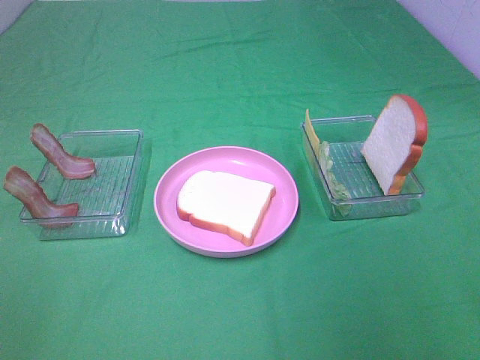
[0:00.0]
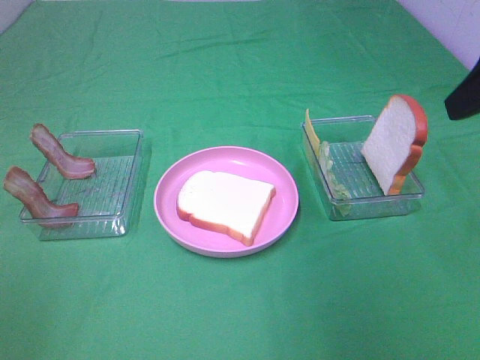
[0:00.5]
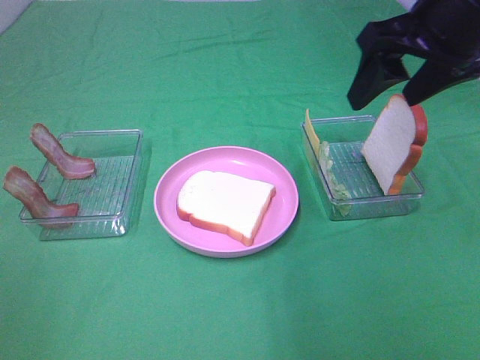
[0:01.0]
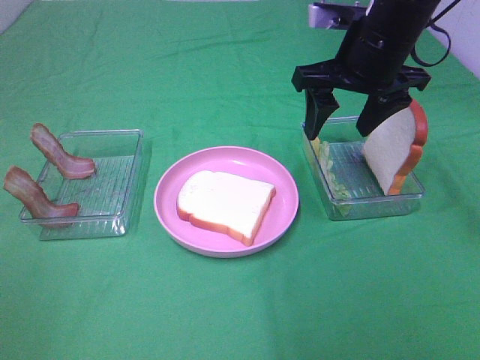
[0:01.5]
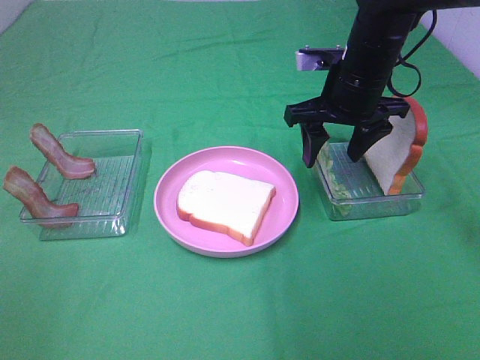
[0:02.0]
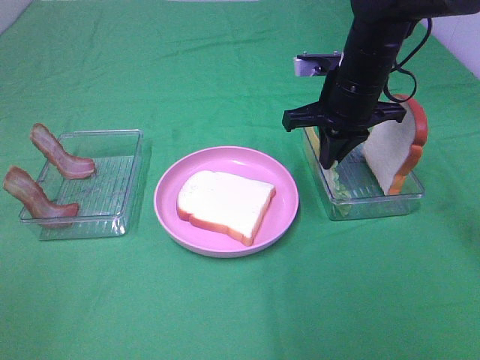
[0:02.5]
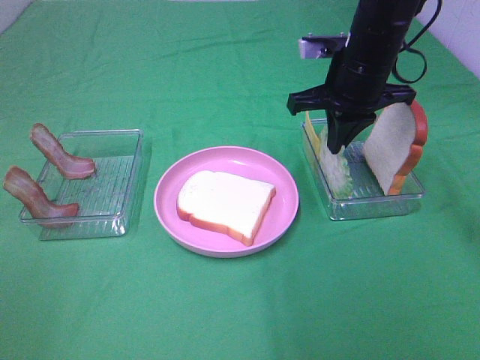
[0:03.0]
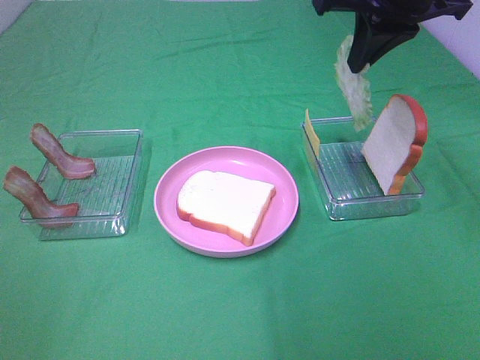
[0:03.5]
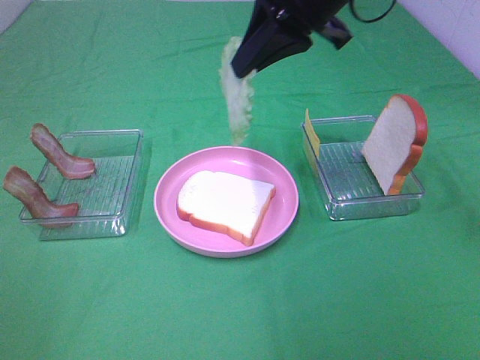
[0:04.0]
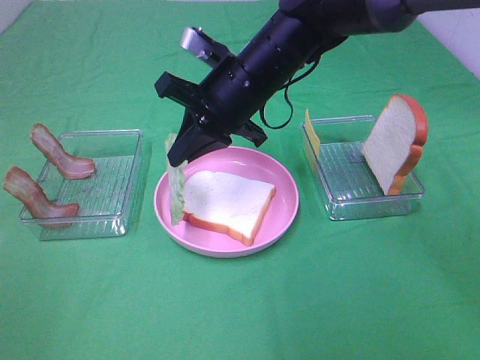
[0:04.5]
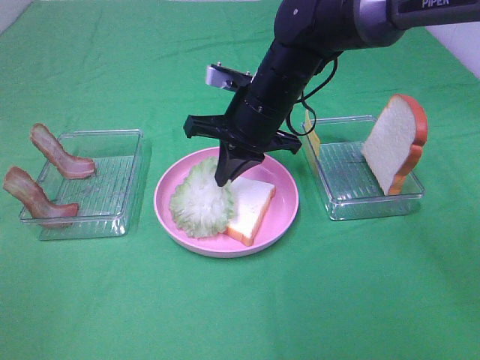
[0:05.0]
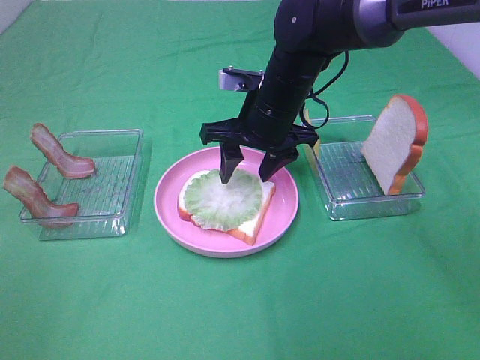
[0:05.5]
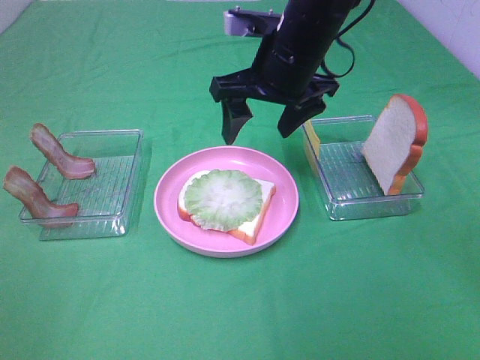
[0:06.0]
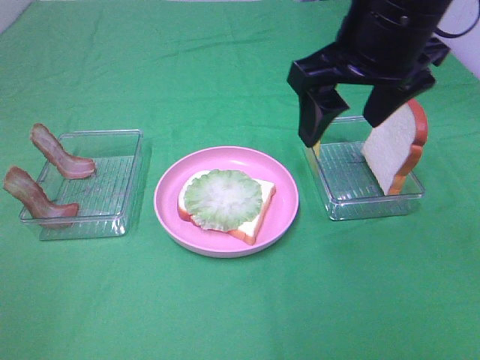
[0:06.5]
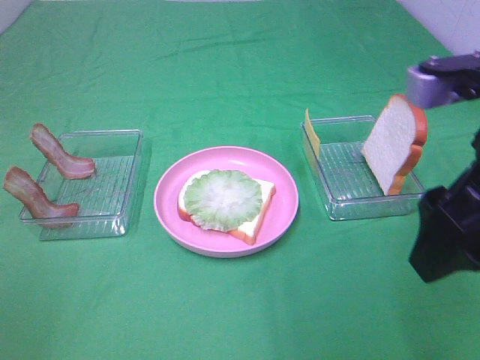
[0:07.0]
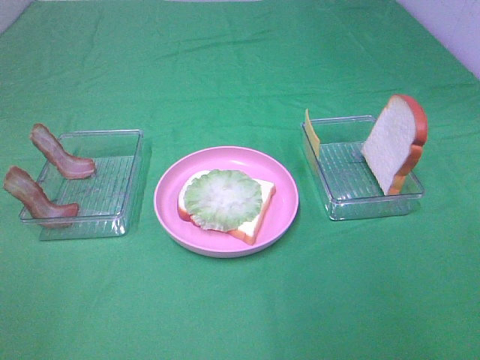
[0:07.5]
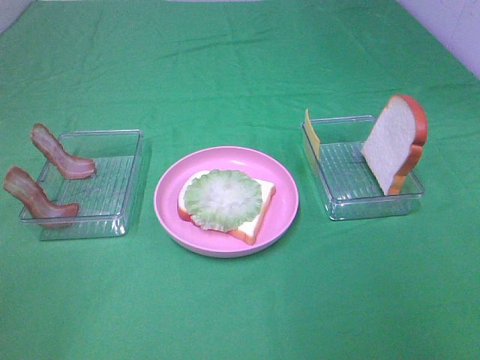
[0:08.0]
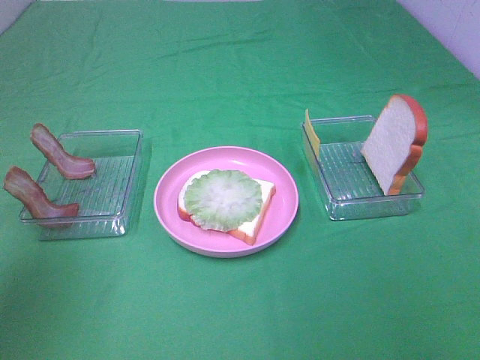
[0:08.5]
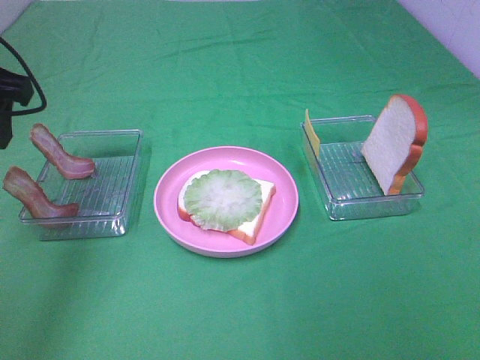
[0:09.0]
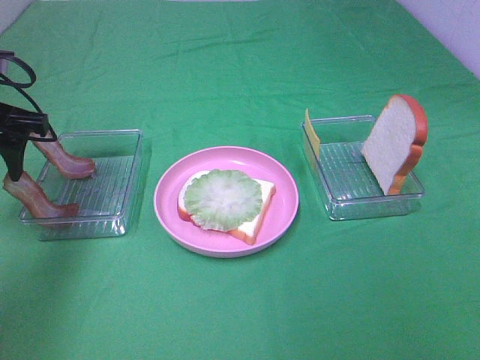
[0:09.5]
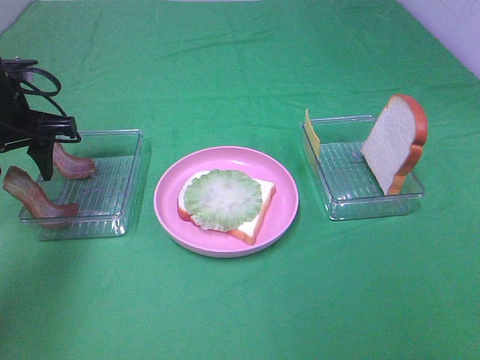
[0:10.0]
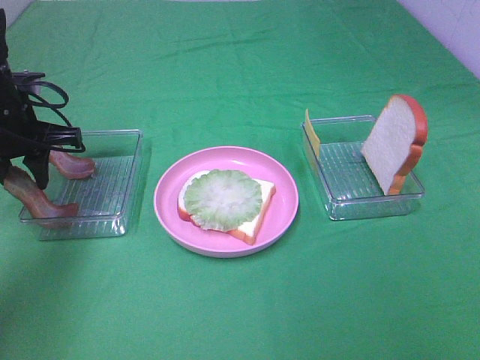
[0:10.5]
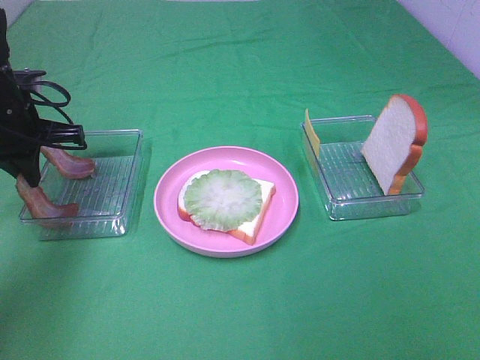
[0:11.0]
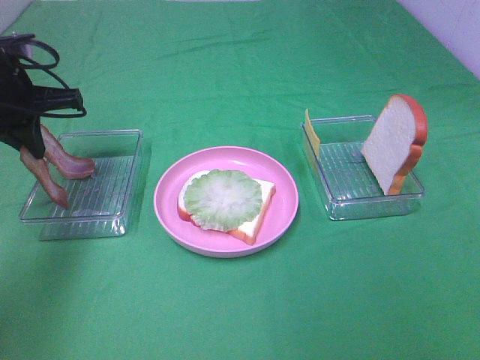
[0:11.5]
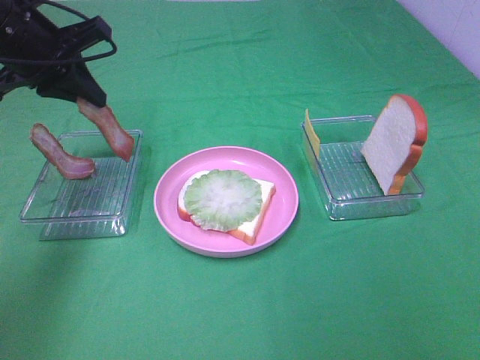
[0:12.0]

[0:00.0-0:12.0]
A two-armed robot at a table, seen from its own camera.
Task of the whole recording: Make sandwiches.
Step, 0:00.0 to 0:02.5: Right hand:grab the lettuce slice.
Step, 0:03.0 to 0:06.0: Right hand:place the lettuce slice on the bread slice.
Step, 0:06.5 to 0:10.5: Left hand:grab the bacon.
0:00.0 to 0:02.0: The right gripper moves forward, to the left and downward, some 35 cm.
0:02.0 to 0:04.0: The right gripper shifts roughly 15 cm upward and to the left, and closes.
0:04.0 to 0:06.0: The right gripper is displaced downward by approximately 5 cm, and opens.
0:06.0 to 0:08.0: The right gripper heads backward and to the right, covering some 40 cm.
0:08.0 to 0:10.0: The left gripper is displaced forward by approximately 35 cm.
0:10.0 to 0:12.0: The left gripper travels upward by about 5 cm, and closes its fingers.

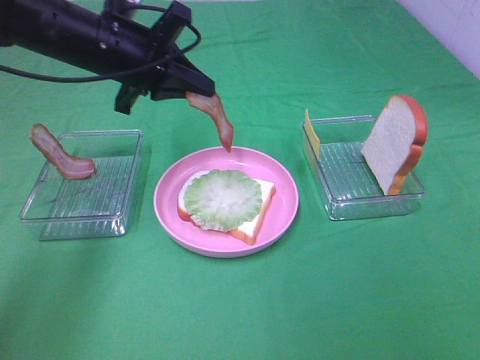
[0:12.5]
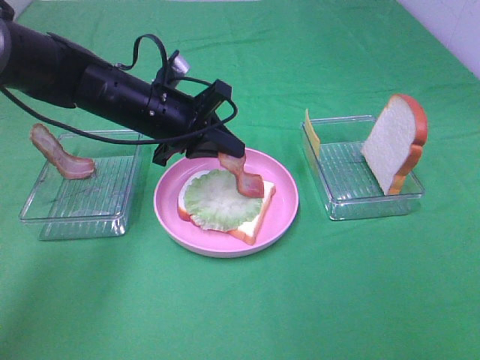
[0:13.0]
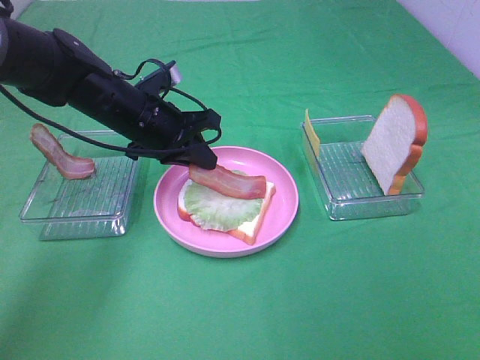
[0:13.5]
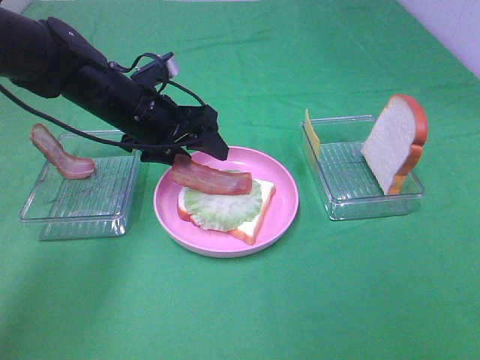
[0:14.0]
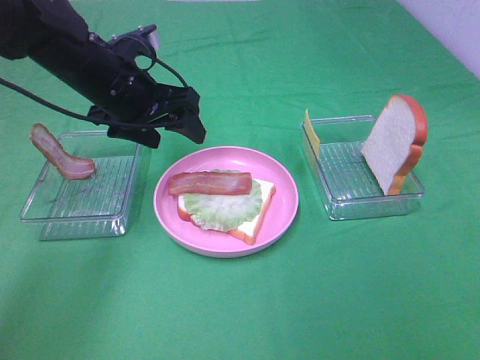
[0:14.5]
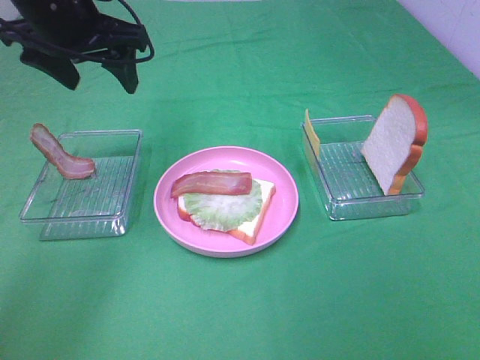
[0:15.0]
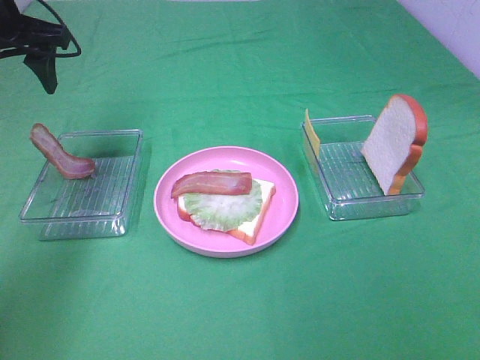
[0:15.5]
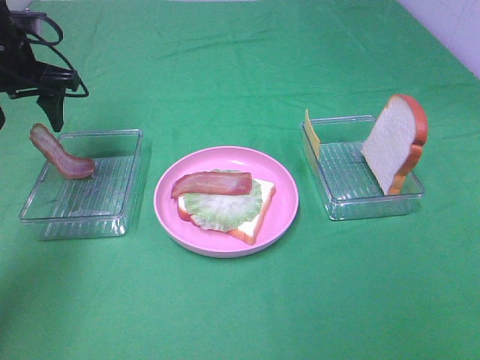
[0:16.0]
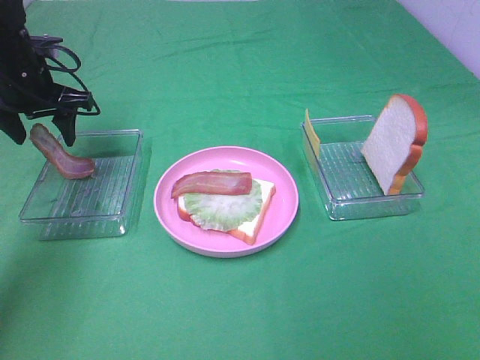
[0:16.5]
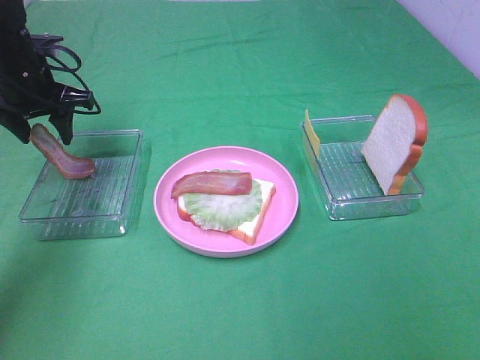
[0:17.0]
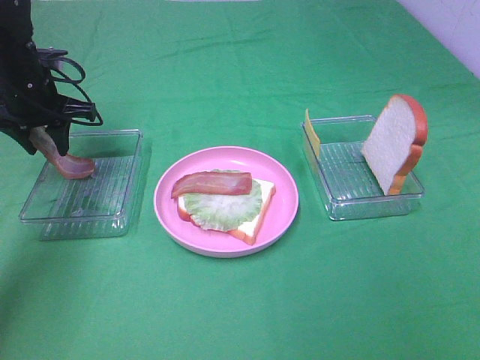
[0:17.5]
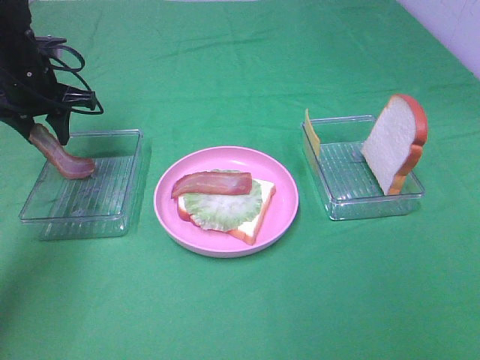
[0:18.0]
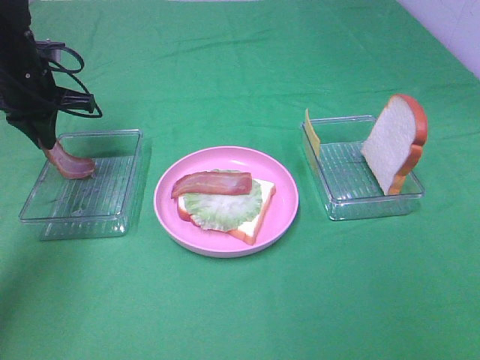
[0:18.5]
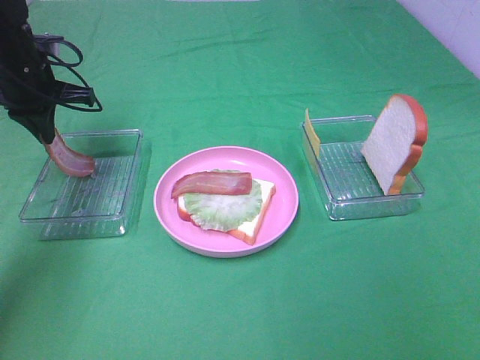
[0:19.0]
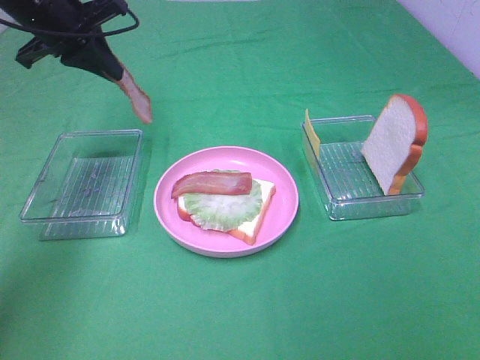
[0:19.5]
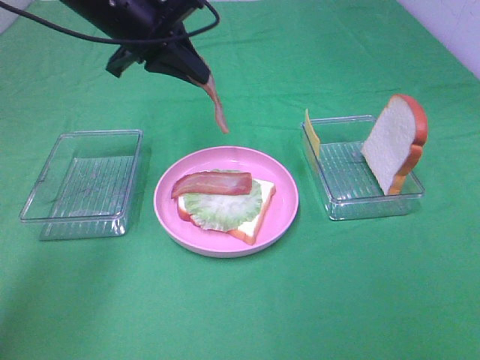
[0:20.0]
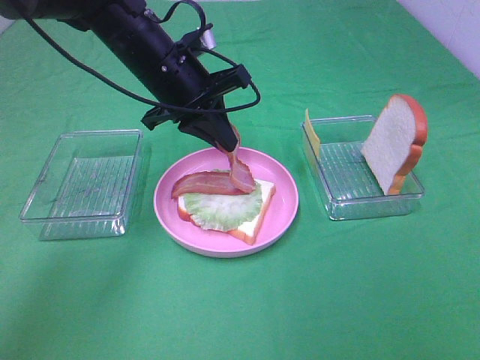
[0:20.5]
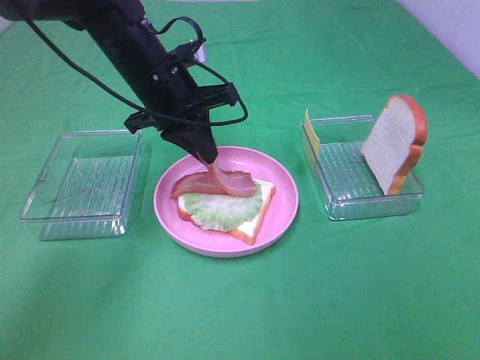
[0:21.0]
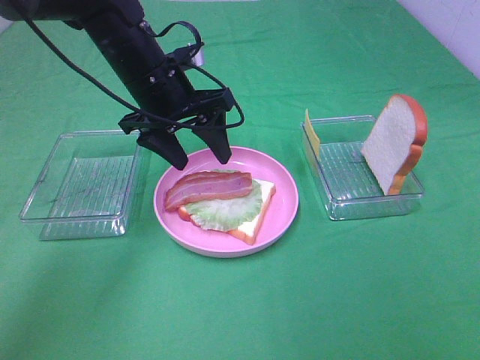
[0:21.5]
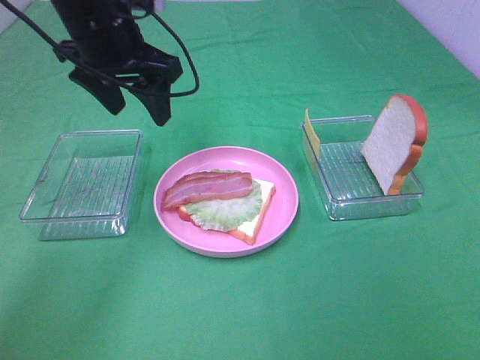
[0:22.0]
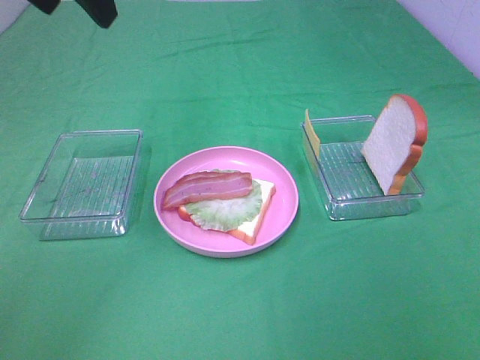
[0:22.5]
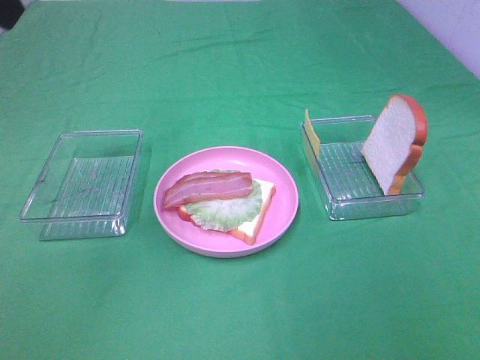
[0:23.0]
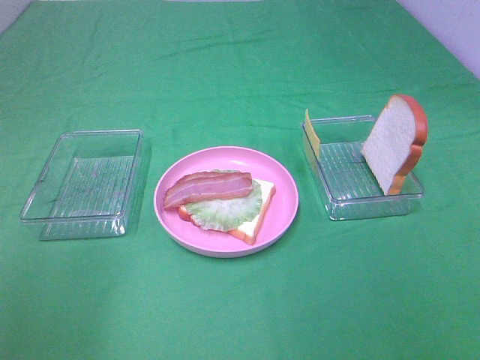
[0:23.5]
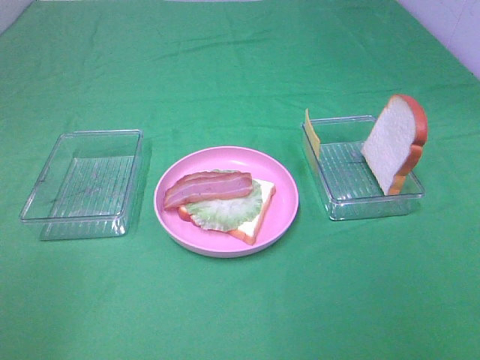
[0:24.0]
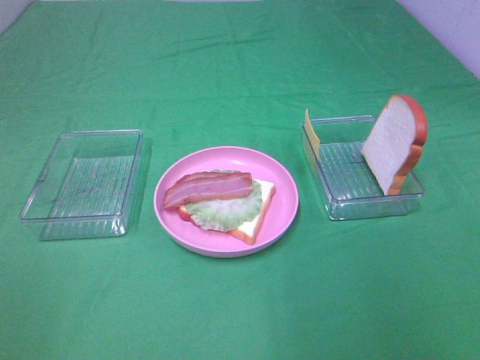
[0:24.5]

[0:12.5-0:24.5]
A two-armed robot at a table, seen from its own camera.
Task of the whole recording: Make sandwiches.
Step, 0:12.5 to 0:14.5: Left hand:place bacon on lettuce slice.
Step, 0:15.0 to 0:18.5: Left hand:grab the bacon.
Step, 0:19.0 to 0:21.5: Left hand:place bacon on bacon.
0:12.5 to 0:14.5: The left gripper opens.
0:14.5 to 0:16.5: The left gripper goes roughly 15 cm to the left and forward.
0:16.5 to 0:18.5: The left gripper closes.
0:18.5 to 0:20.5: The left gripper travels to the right by roughly 20 cm.
0:20.5 to 0:22.5: The left gripper is displaced upward and to the left by about 20 cm, and opens.
0:22.5 to 0:24.5: The left gripper shifts about 35 cm backward and to the left.

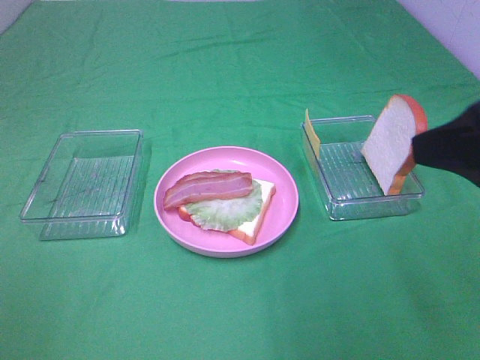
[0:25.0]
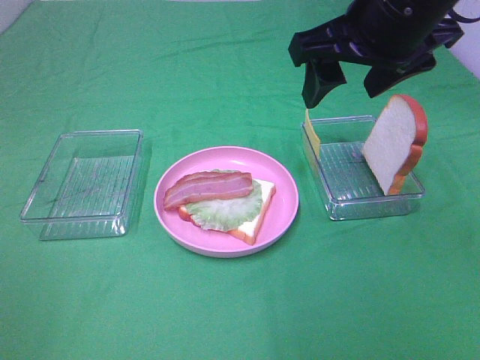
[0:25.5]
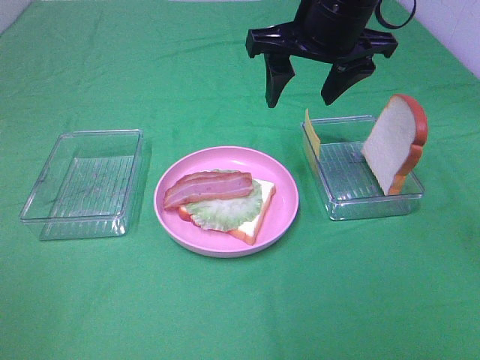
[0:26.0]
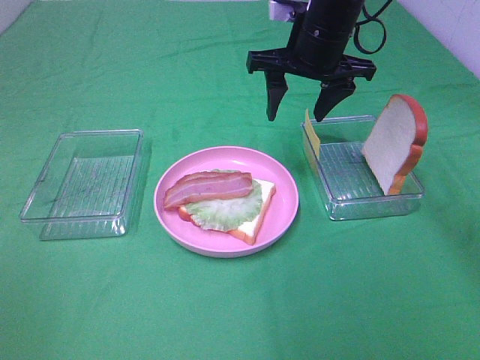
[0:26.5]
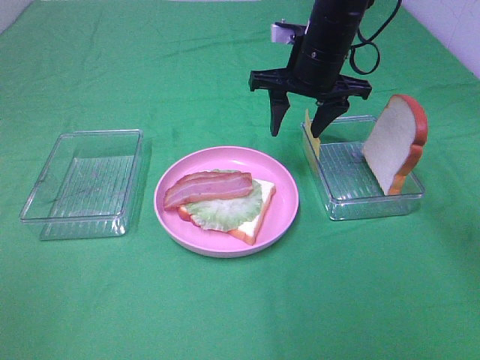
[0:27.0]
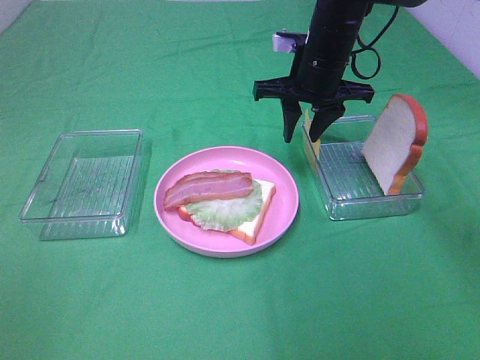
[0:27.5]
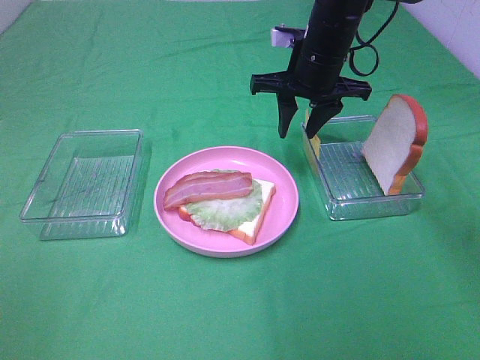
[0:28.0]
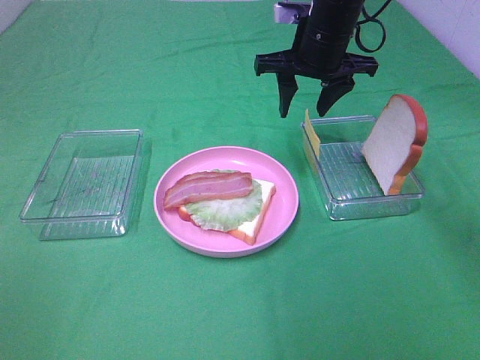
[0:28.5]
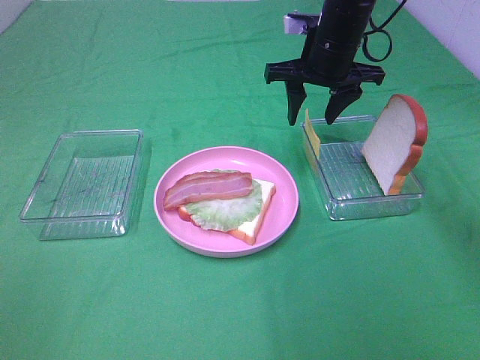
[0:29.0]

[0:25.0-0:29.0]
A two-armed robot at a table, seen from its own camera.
Task of the whole recording: Make sandwiches.
0:25.0 to 0:27.0: The right gripper is displaced forward by some 30 cm.
0:27.0 to 0:29.0: The grippers make only small movements.
